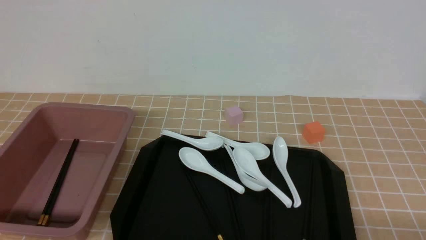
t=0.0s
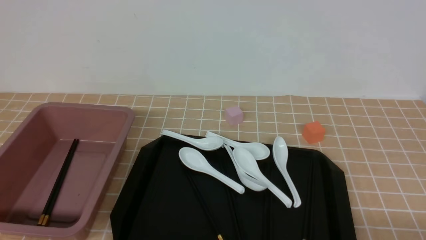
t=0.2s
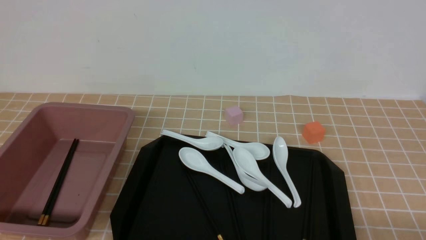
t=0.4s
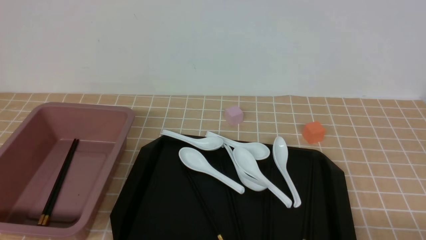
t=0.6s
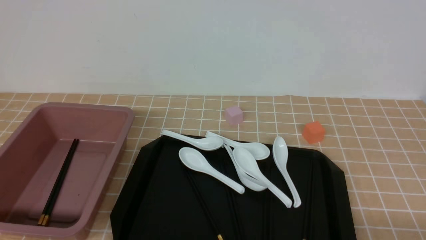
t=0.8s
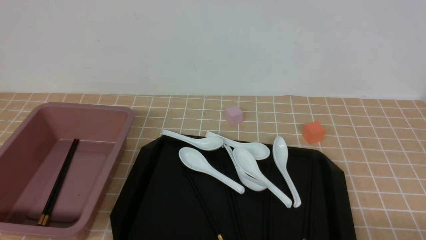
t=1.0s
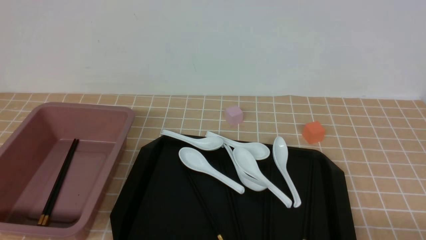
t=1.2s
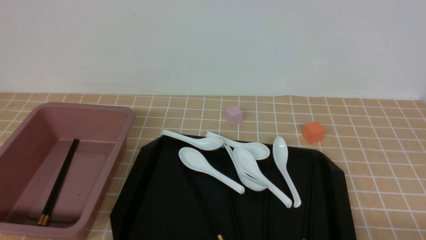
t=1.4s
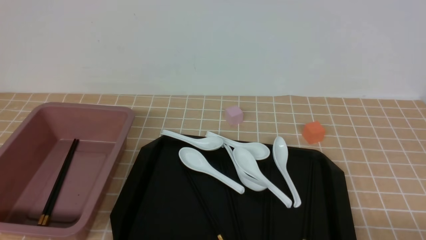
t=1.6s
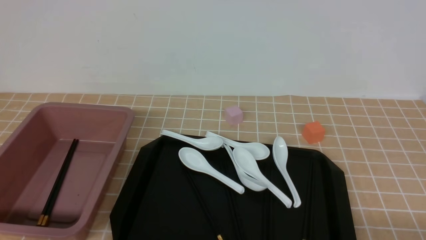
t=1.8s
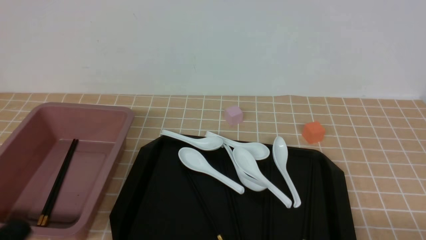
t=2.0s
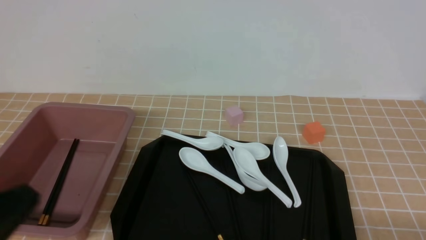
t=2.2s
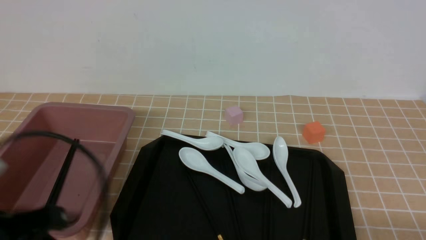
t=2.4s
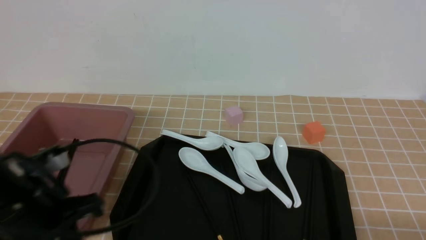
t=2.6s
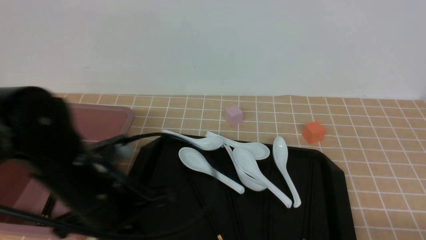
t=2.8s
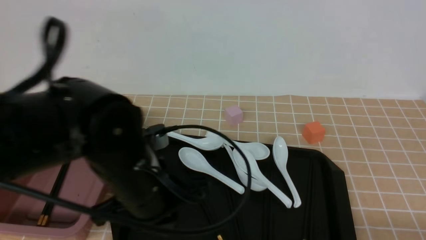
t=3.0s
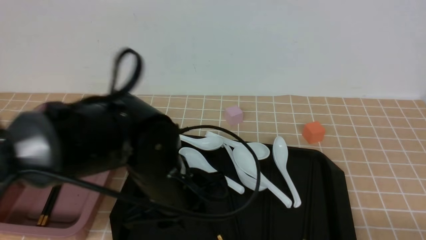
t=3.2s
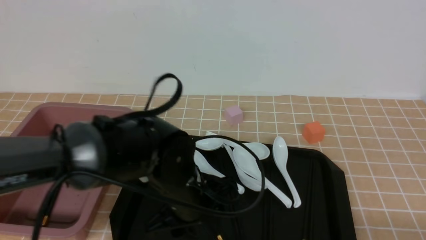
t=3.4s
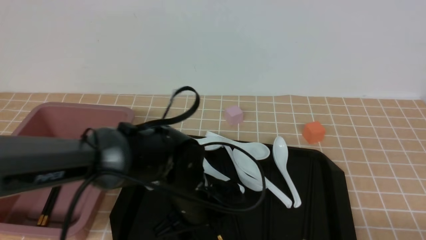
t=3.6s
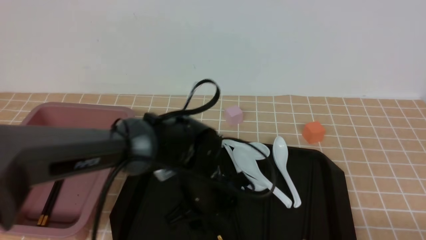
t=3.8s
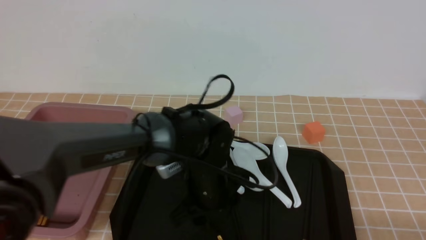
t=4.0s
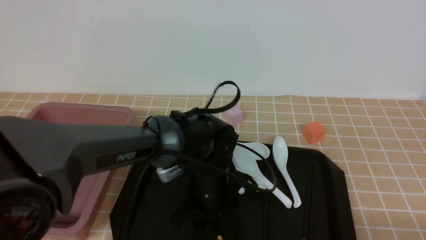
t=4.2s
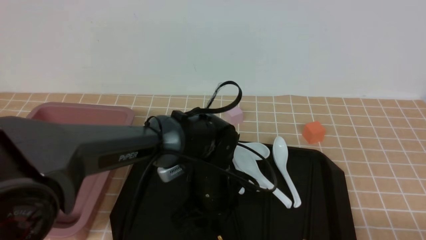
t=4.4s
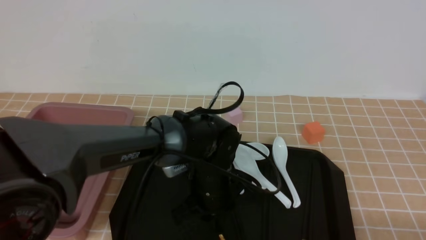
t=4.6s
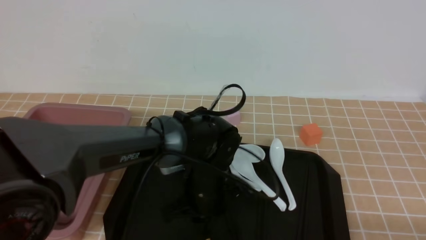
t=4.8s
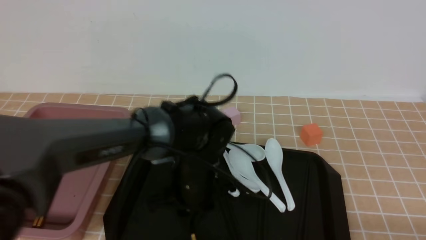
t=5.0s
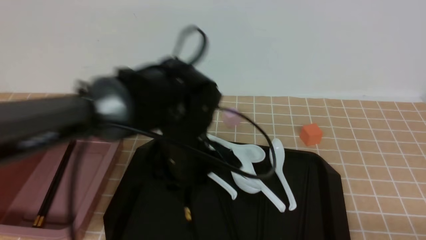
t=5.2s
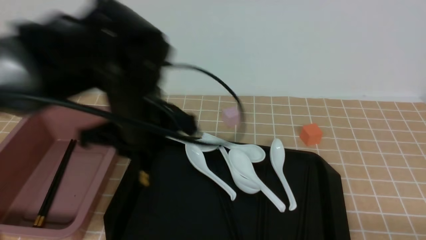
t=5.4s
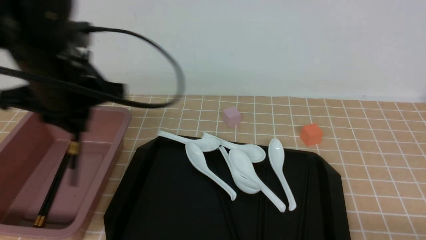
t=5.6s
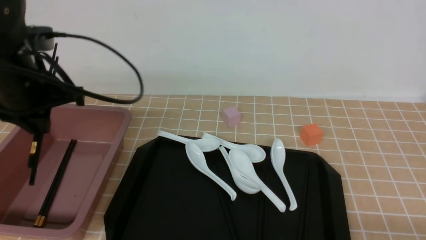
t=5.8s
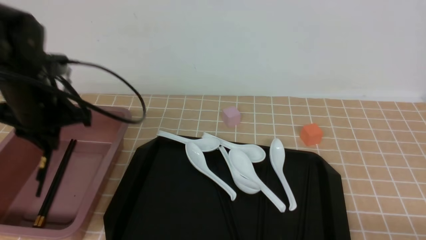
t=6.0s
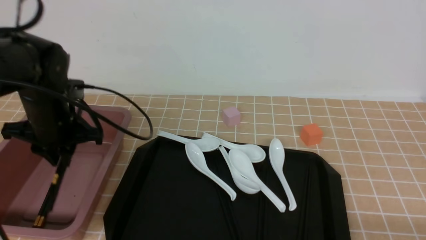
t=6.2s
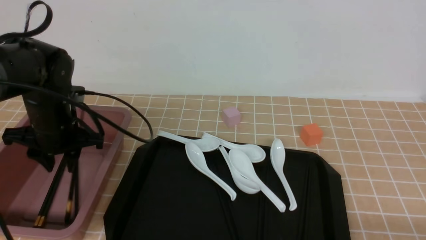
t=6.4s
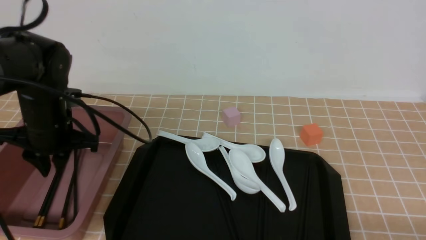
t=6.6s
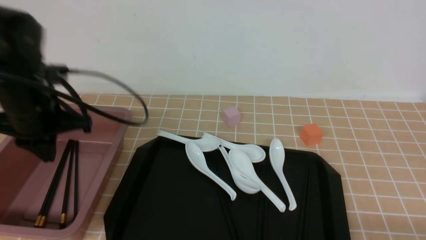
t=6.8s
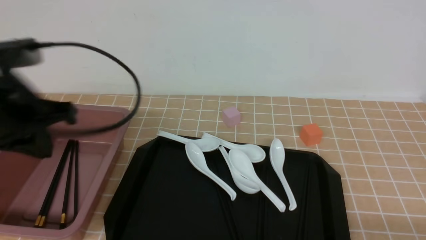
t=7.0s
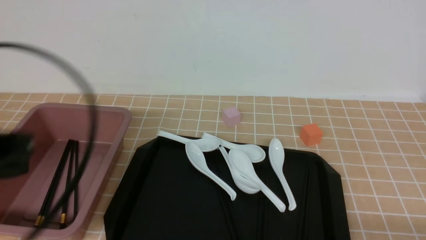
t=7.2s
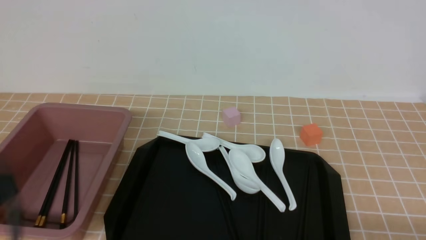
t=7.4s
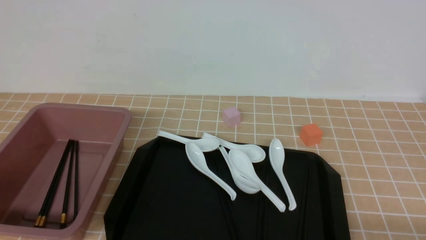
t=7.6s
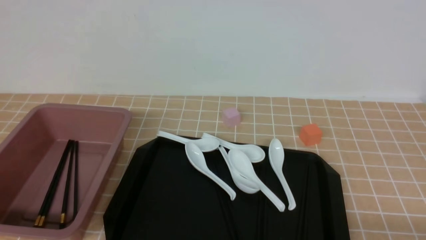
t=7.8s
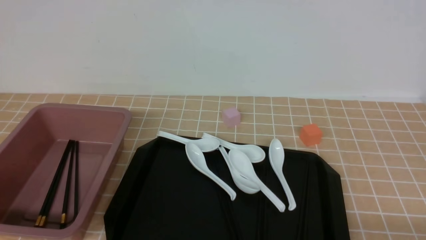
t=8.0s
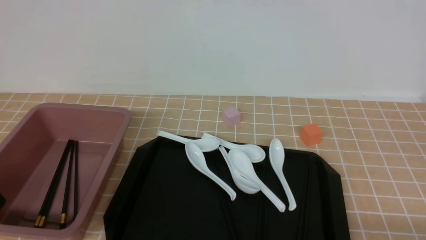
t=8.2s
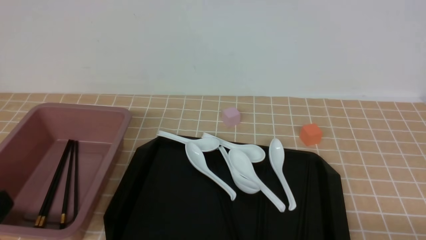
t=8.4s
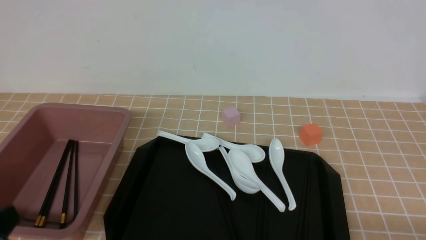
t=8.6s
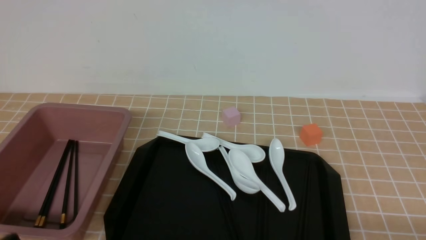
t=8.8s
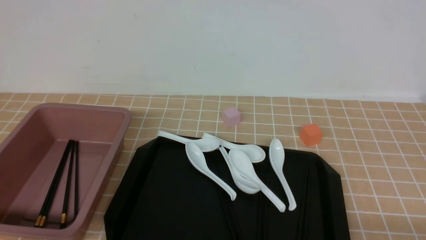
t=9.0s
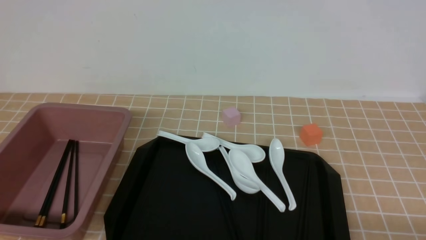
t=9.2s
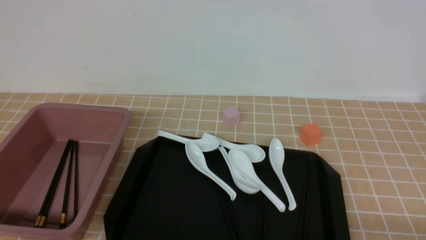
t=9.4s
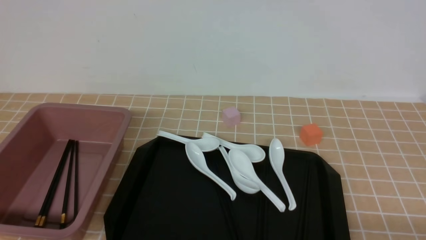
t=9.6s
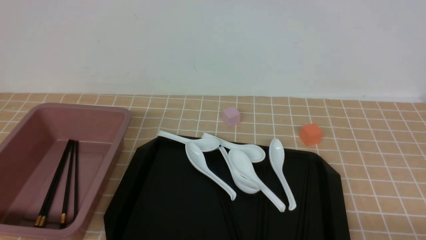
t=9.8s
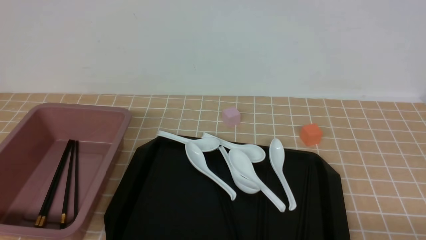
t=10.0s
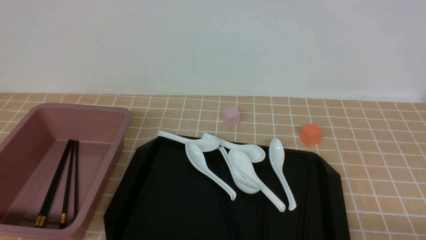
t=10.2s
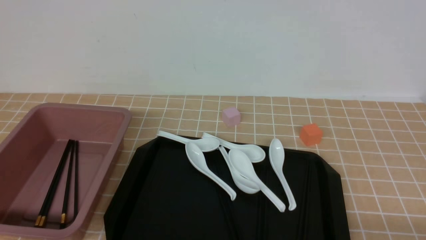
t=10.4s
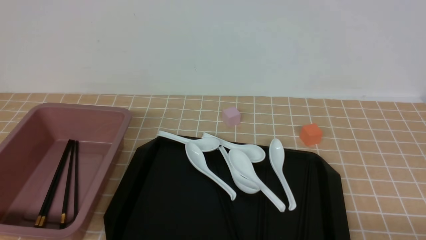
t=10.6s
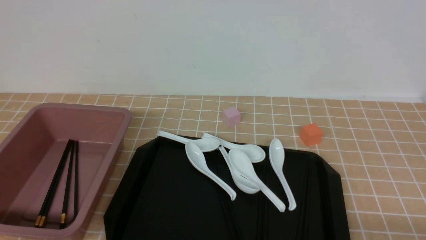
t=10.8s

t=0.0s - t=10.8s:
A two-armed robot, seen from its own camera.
Step, t=0.0s - t=5.2s: use the left arm to grab a pair of chopsticks.
Step, t=5.4s - t=6.8s: use the left arm to put the chopsticks into the lunch box.
t=1.6s - t=3.0s: The left gripper shifts some 25 cm forward, to the right and upward.
t=3.0s - t=4.6s: The left gripper moves downward, to the right and forward, roughly 15 cm, and opens, then closes once more.
t=4.6s - t=6.2s: The left gripper travels to the left and upward by about 25 cm.
t=6.2s - t=7.8s: The left gripper goes roughly 30 cm backward, and closes.
t=9.2s - t=10.8s: Both grippers stay about where they are.
